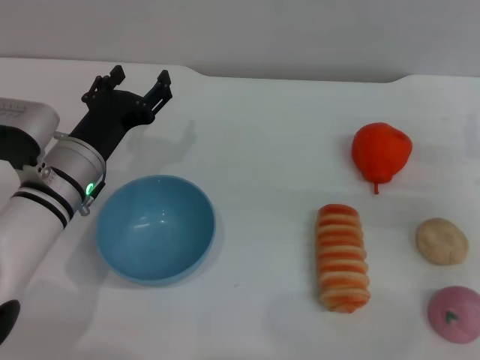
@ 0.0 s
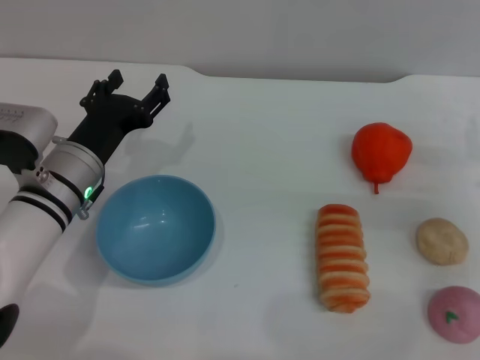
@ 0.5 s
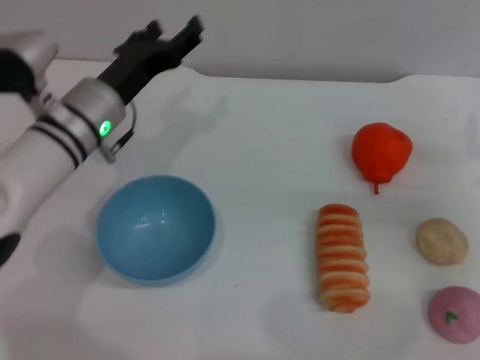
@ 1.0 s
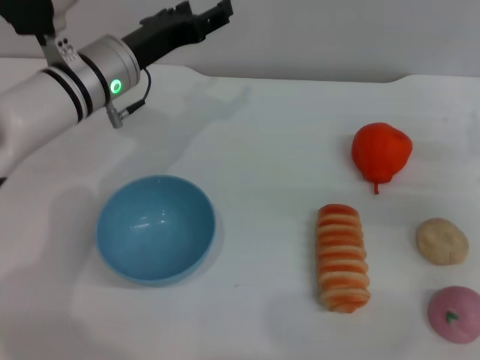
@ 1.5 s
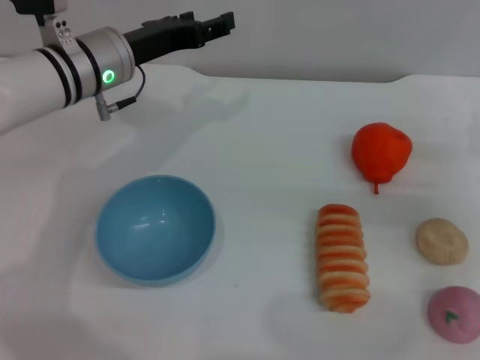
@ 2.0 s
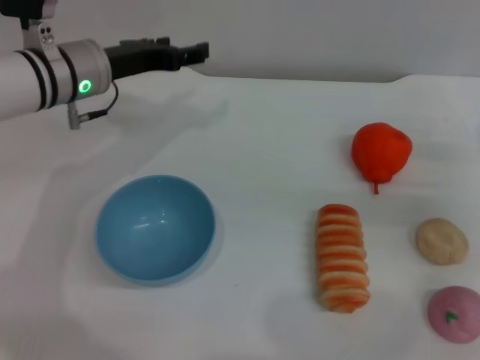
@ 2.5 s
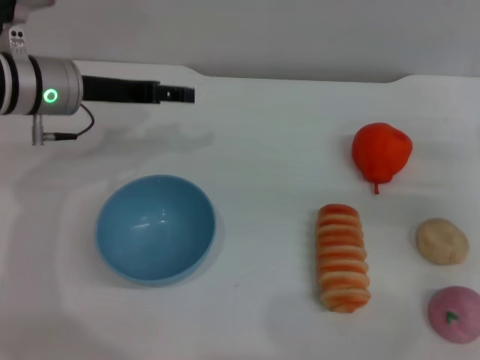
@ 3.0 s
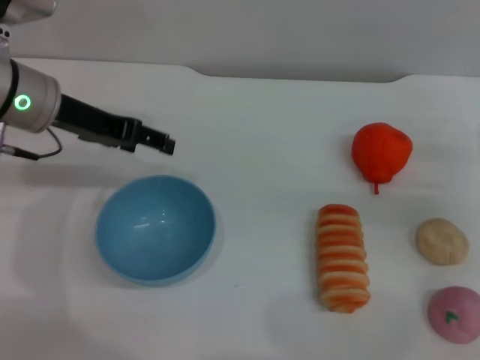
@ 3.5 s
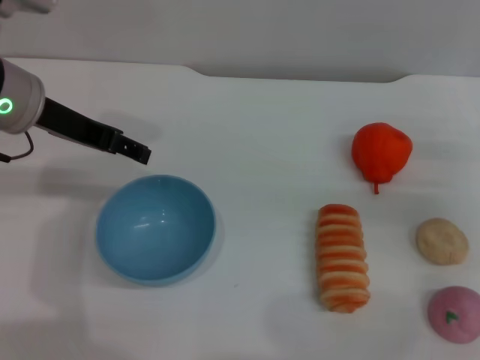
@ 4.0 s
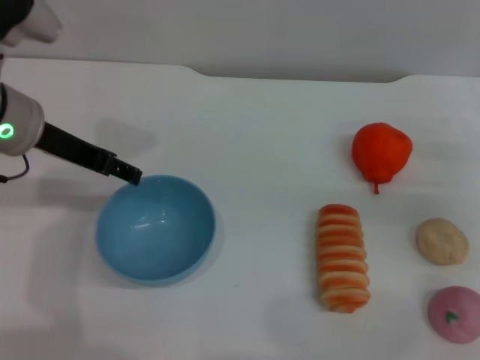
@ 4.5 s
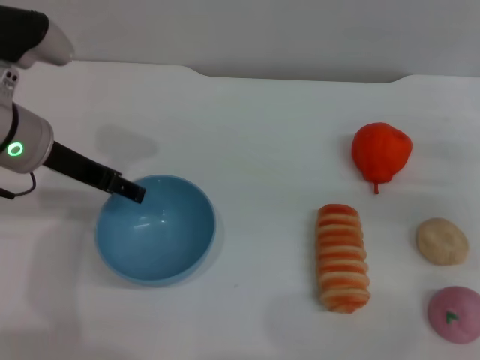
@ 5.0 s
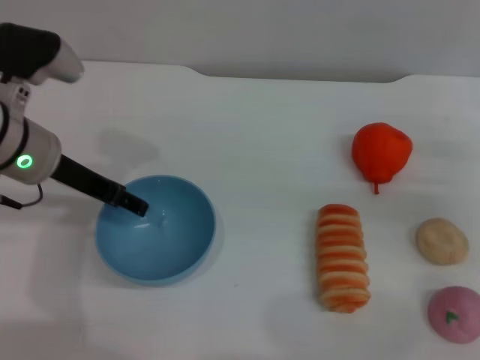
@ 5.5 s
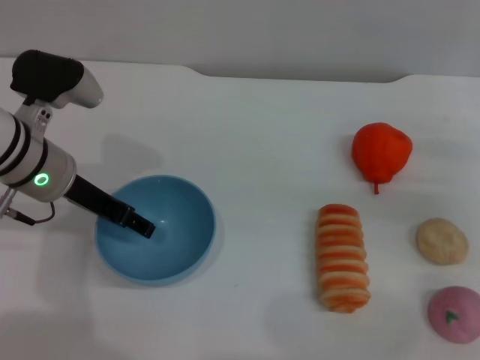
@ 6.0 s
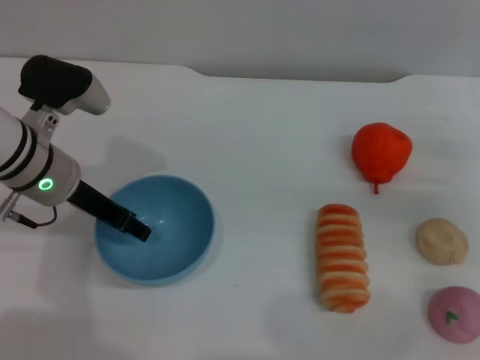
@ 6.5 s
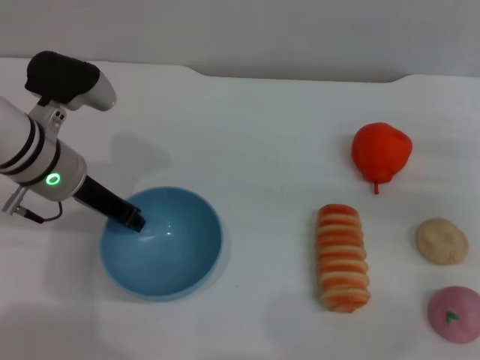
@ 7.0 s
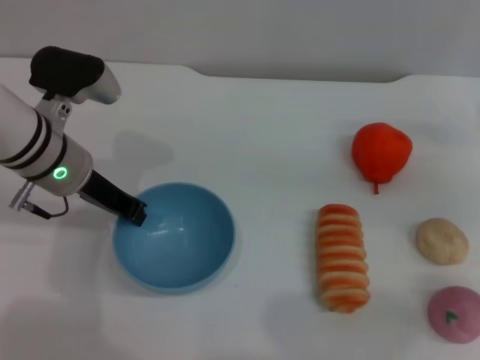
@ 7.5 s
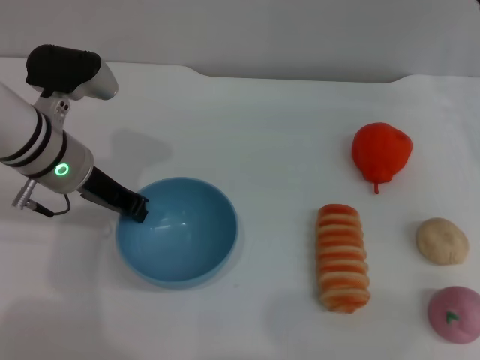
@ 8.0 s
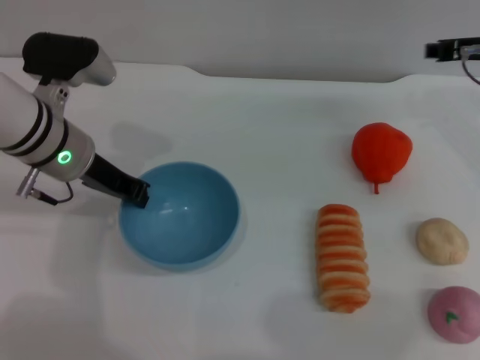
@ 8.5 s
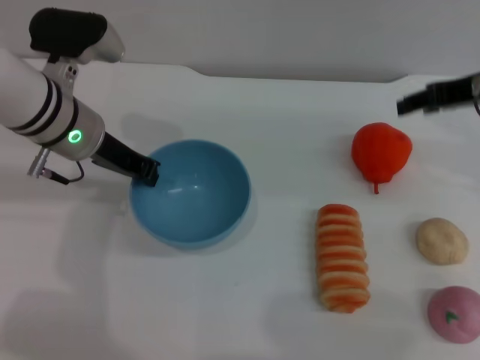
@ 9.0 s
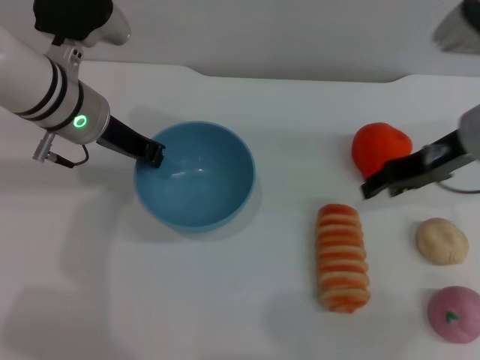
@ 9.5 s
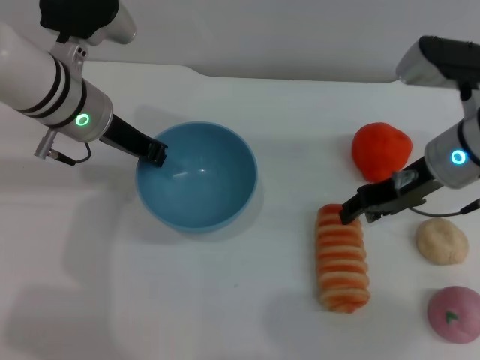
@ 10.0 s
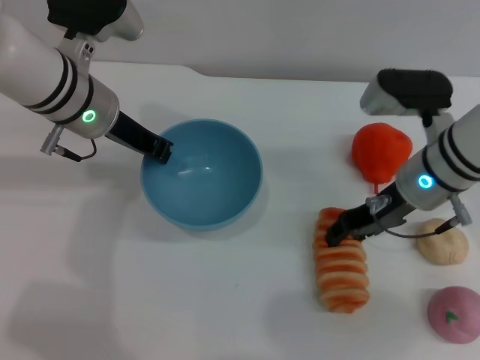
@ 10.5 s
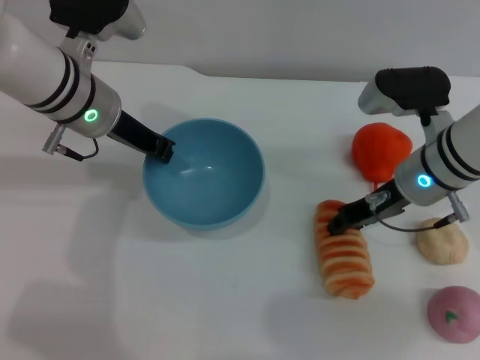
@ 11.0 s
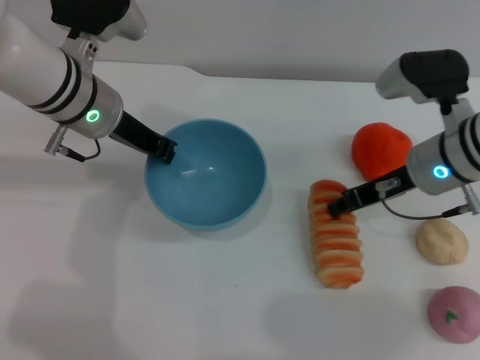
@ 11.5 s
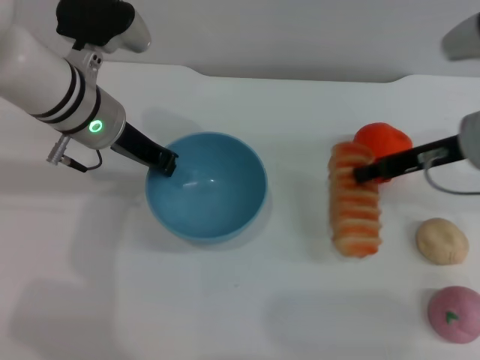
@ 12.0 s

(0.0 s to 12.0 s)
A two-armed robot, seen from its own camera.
Task of the whole recording: put the bread into the blue bowl and pour it out repeatedly.
Step, 0.0 s - 8.5 s: Pick up the bowl with the left gripper.
0.0 s - 2.0 s: The left gripper goes roughly 15 cm forward and upward.
2.0 s - 4.0 s: The left gripper shifts approximately 10 cm upward and backward.
4.0 s - 6.0 s: The left gripper is displaced downward by approximately 10 cm.
6.0 s - 8.0 s: The right gripper shifts about 15 cm forward, upward and to the left, while the left gripper closes its fingers.
8.0 s - 10.0 s: The right gripper heads to the left and backward, covering approximately 10 cm; the left gripper shifts by approximately 5 cm.
10.0 s - 12.0 s: The right gripper closes up.

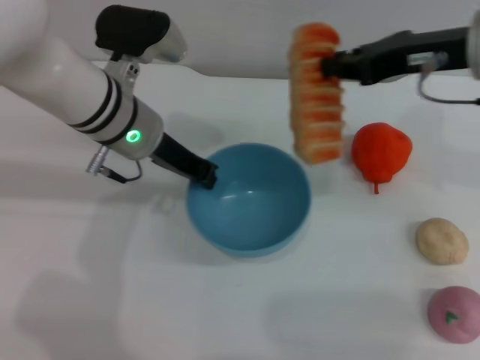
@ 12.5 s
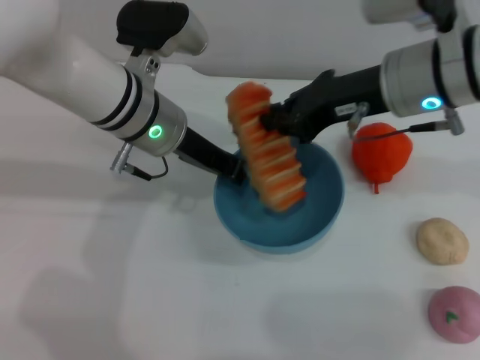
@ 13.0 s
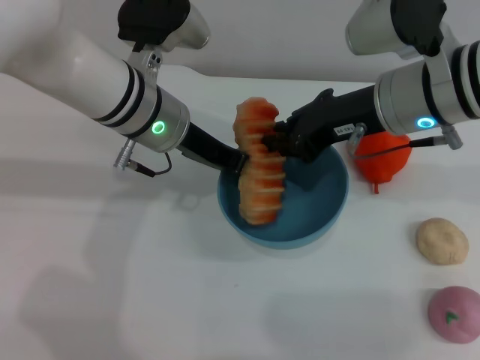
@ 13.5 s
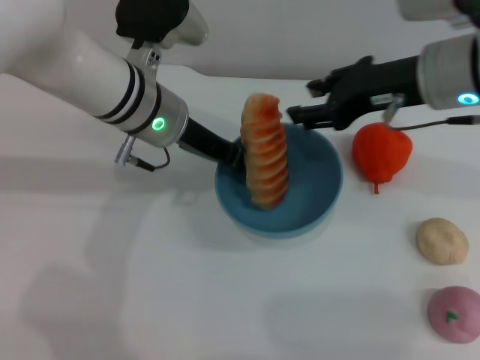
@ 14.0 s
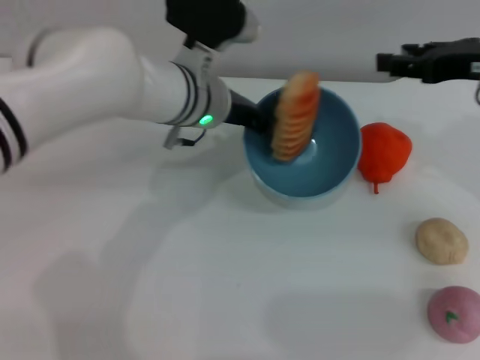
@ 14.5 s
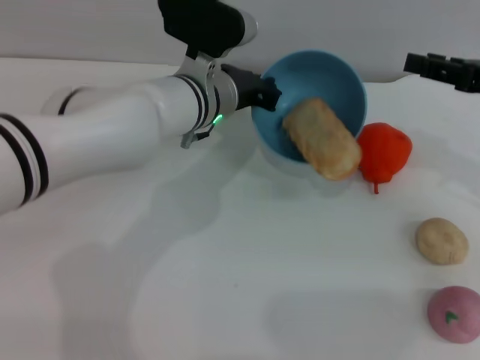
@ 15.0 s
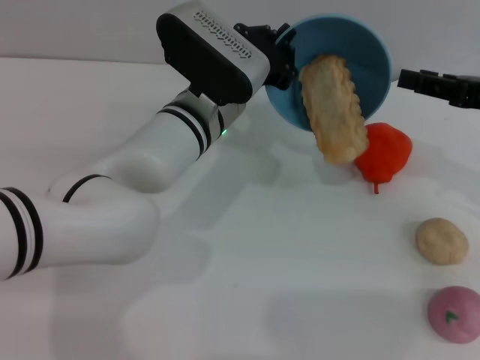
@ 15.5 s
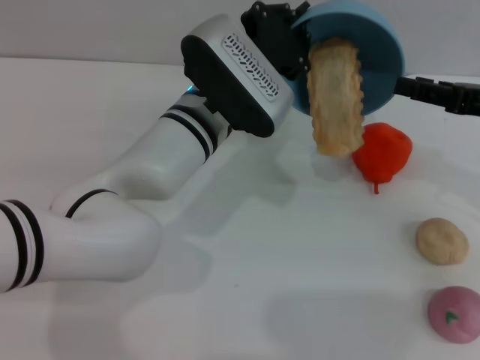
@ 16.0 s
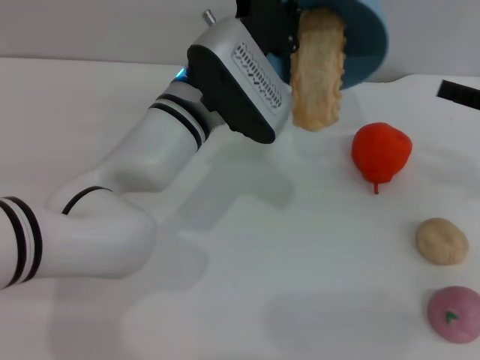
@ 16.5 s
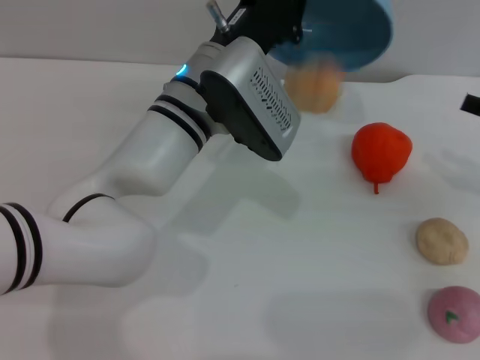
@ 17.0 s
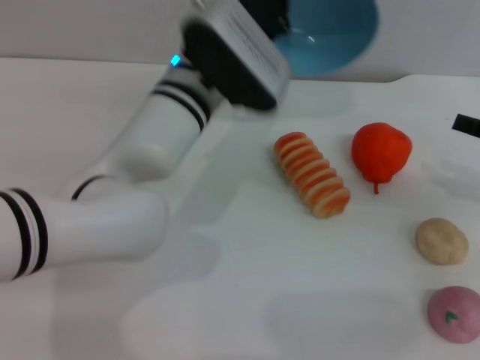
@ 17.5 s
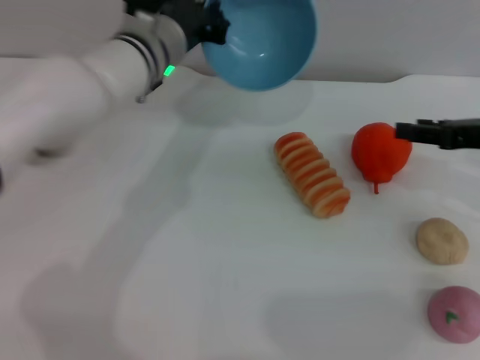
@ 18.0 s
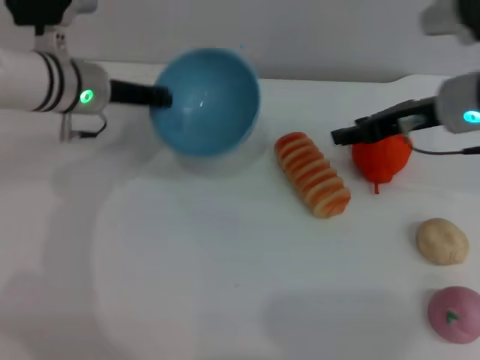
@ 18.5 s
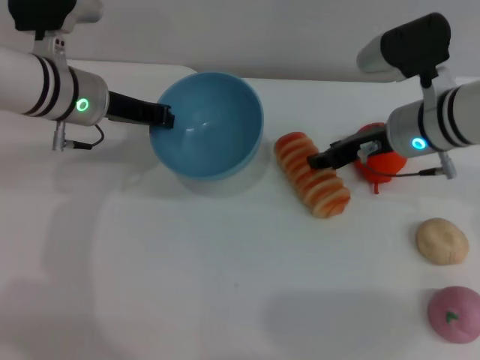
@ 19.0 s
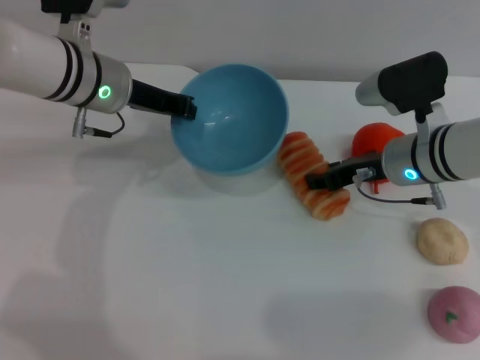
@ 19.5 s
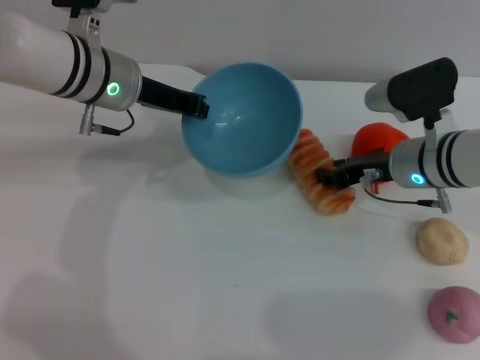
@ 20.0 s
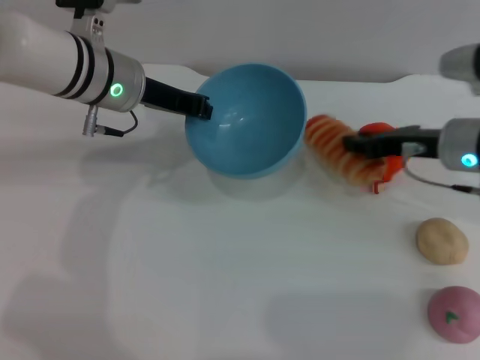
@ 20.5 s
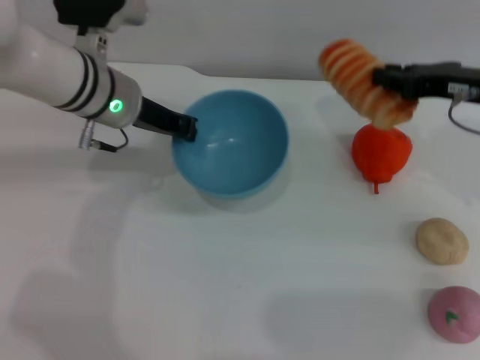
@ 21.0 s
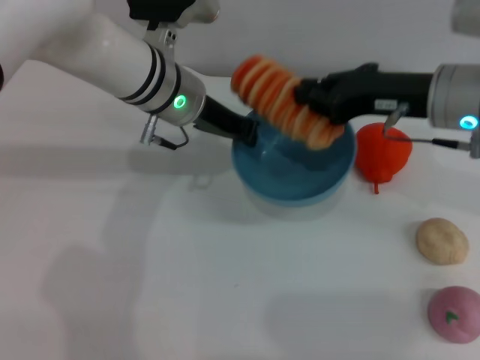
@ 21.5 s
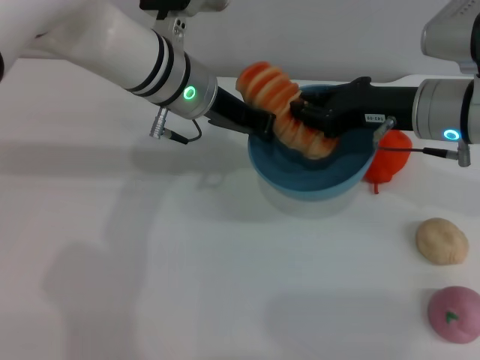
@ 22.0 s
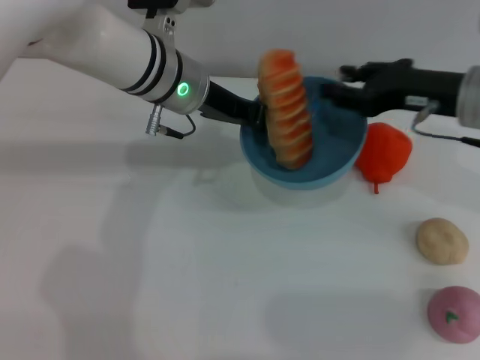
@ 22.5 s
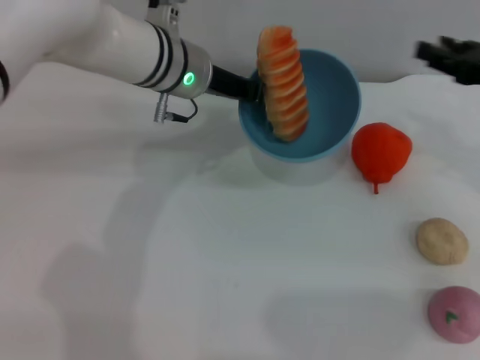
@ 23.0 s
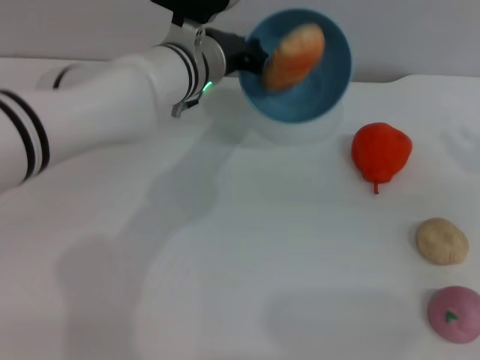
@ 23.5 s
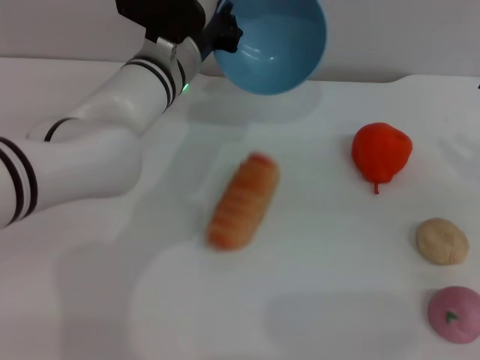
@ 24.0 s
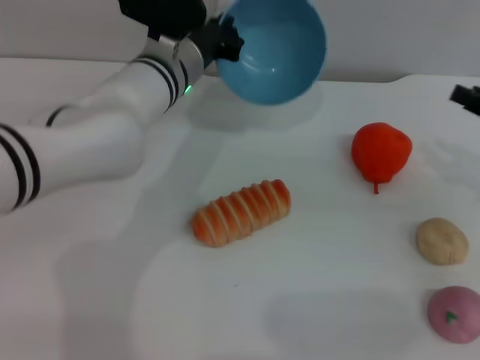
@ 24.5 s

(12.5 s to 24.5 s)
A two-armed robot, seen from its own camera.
Task of the whole recording: put the bread into the blue bowl and pour it out repeatedly.
Step, 12.5 s - 14.5 s: Place the bread into the bowl.
Step, 15.5 s - 17.0 s: Pour the bread out of the bowl.
Step, 17.5 s - 20.0 s: Pick up the bread with the right gripper.
Step, 20.5 s - 22.5 s: Place the bread into the bowl.
Step, 23.0 s - 24.5 s: Pour the bread out of the bowl.
12.5 s - 14.5 s: Both grippers travel together to the right, roughly 5 cm. The right gripper opens its fingers.
14.5 s - 16.5 s: The right gripper shifts approximately 10 cm to the right and downward.
16.5 s - 18.5 s: The left gripper heads to the left, covering about 15 cm. The right gripper heads to the left and forward, covering some 15 cm.
18.5 s - 20.5 s: The right gripper shifts some 5 cm downward, and closes up, while the left gripper shifts by approximately 5 cm.
20.5 s - 22.5 s: The right gripper is displaced upward by approximately 5 cm. Meanwhile the left gripper is displaced to the right by approximately 5 cm.
22.5 s - 24.5 s: The right gripper is displaced to the right by roughly 10 cm.

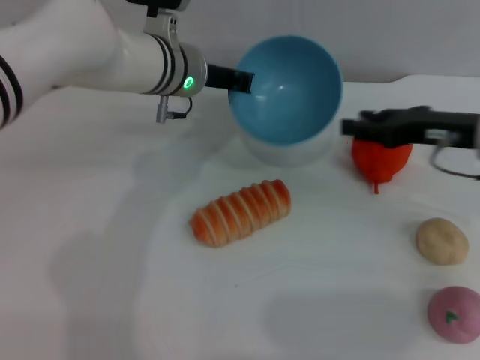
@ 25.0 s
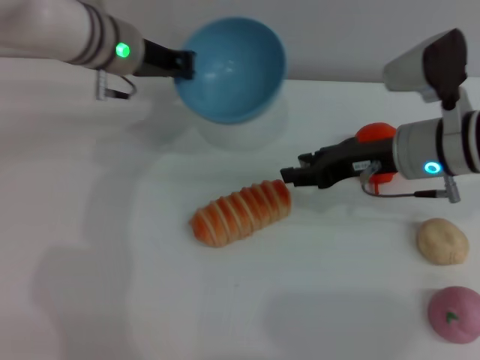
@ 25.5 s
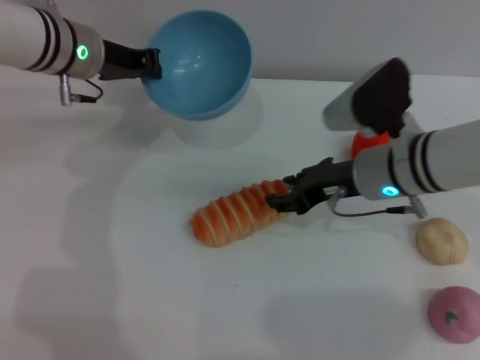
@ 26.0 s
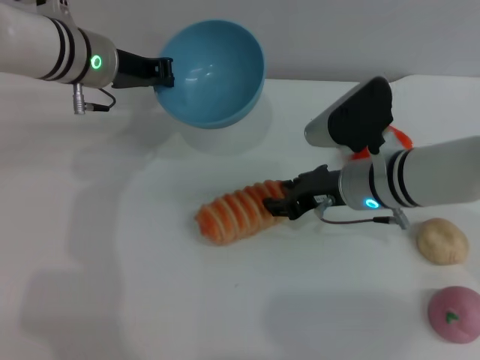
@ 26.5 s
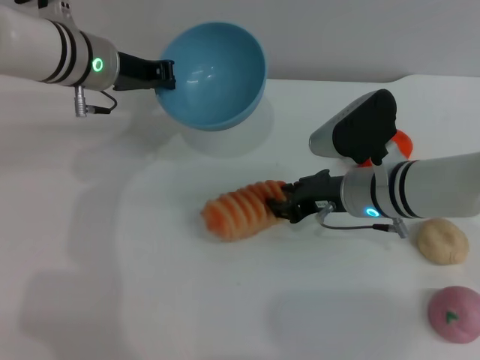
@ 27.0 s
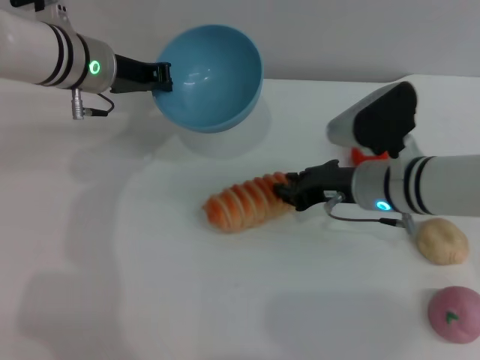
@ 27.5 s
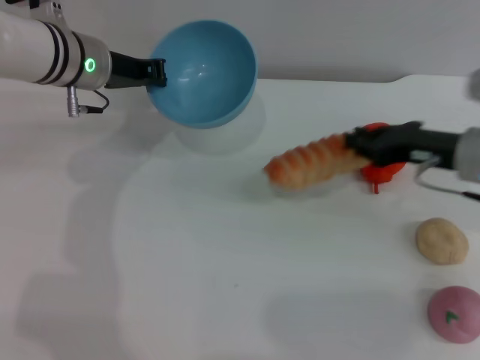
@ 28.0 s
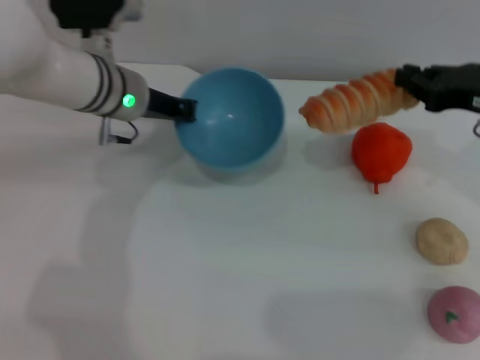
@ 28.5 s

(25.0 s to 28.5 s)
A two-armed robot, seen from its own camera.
Task of the whole recording: put the bread into the blue bowl and pour it out repeatedly.
Step, 25.0 s - 28.0 s: Pick up the bread with the right gripper.
25.0 s - 27.0 s: The left gripper travels to the left by approximately 10 cm. The right gripper goes about 15 cm to the left and downward.
27.0 s - 28.5 s: The right gripper travels to the right and upward by about 20 cm, and closes its fingers.
